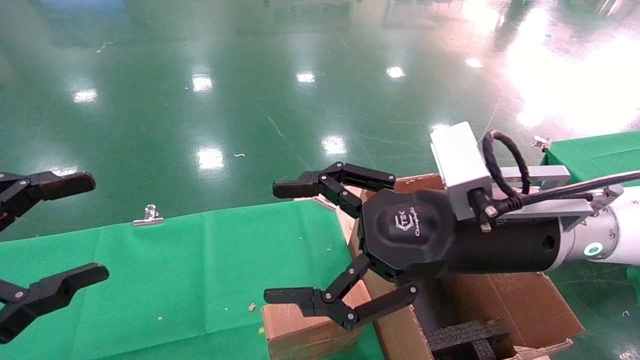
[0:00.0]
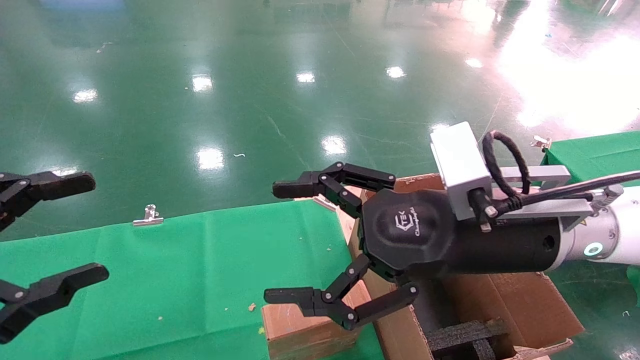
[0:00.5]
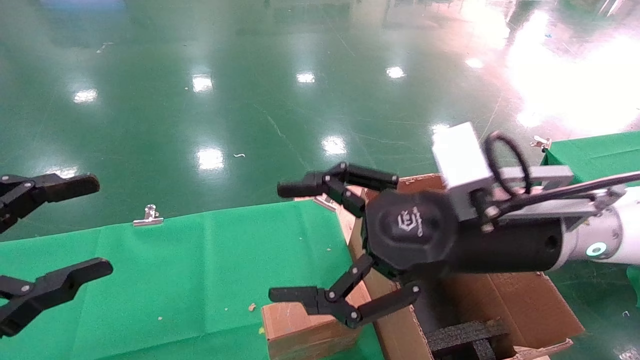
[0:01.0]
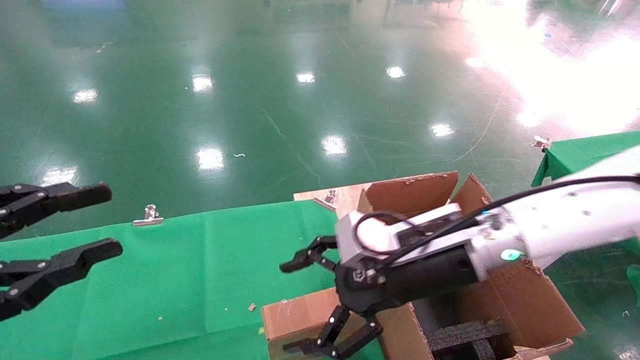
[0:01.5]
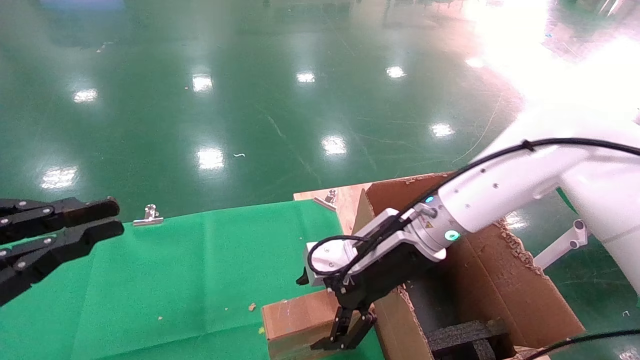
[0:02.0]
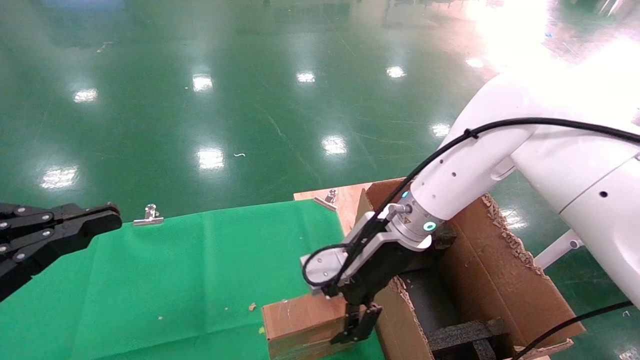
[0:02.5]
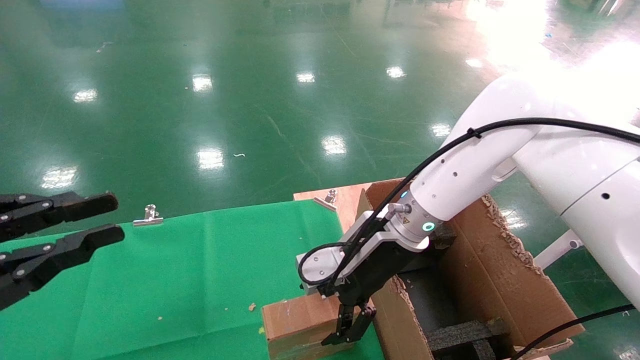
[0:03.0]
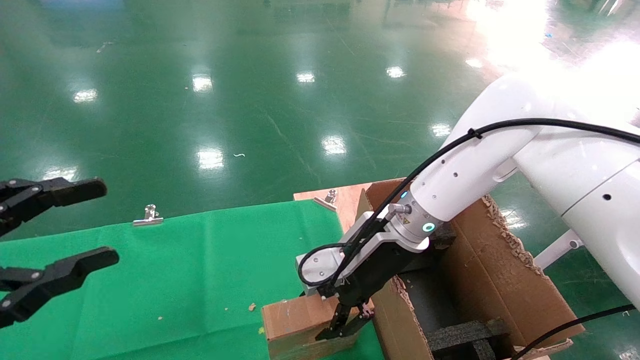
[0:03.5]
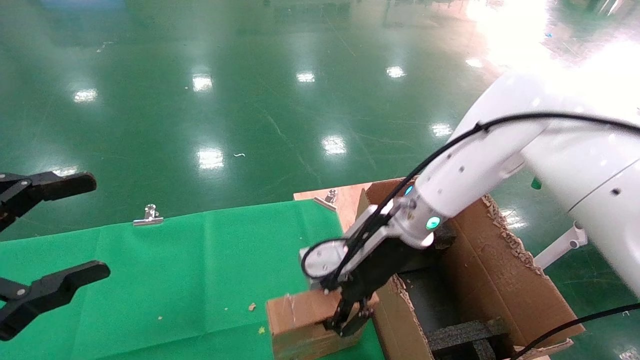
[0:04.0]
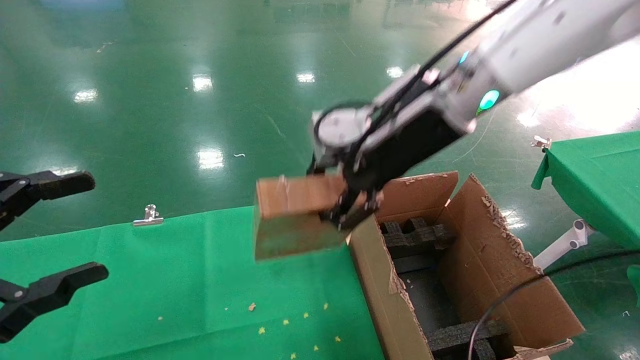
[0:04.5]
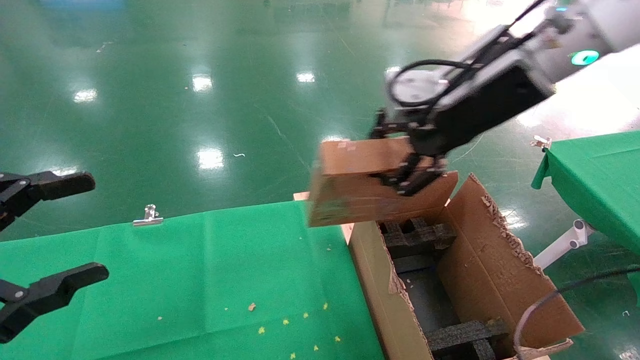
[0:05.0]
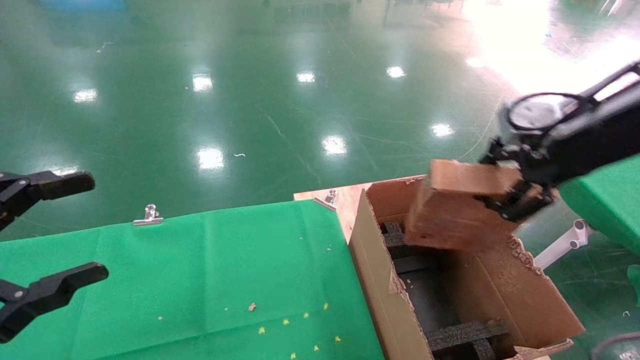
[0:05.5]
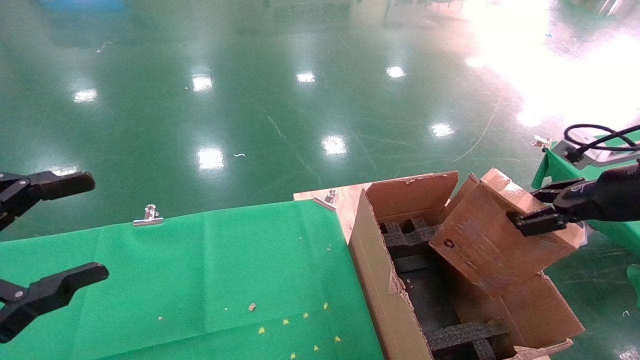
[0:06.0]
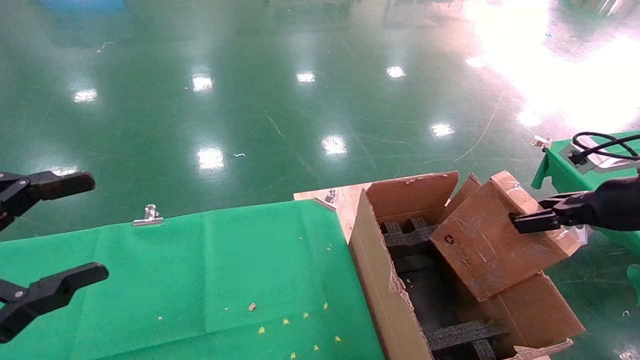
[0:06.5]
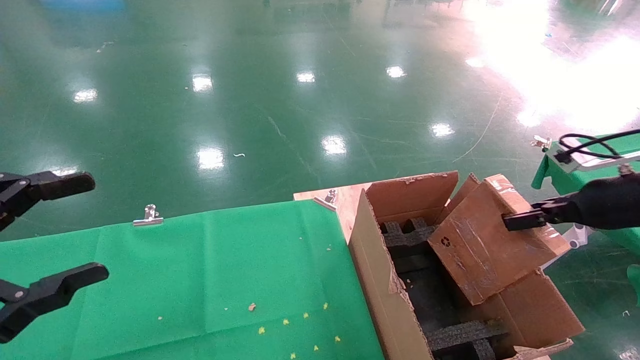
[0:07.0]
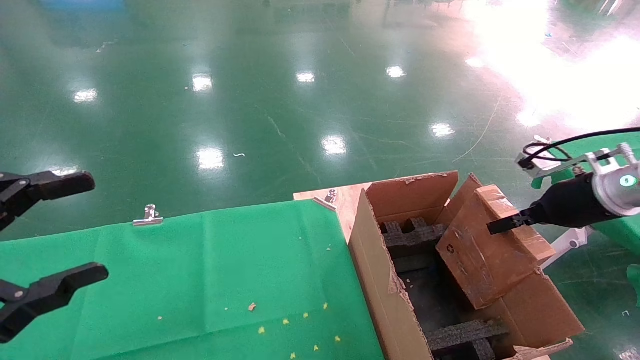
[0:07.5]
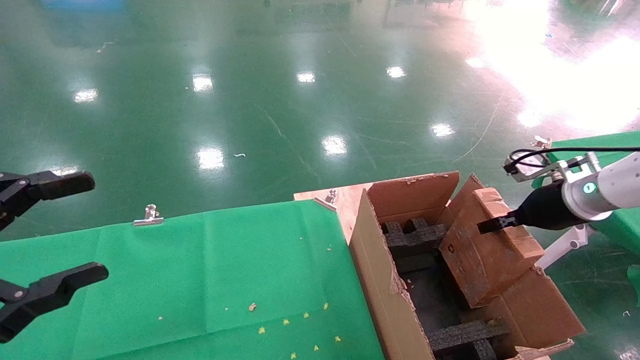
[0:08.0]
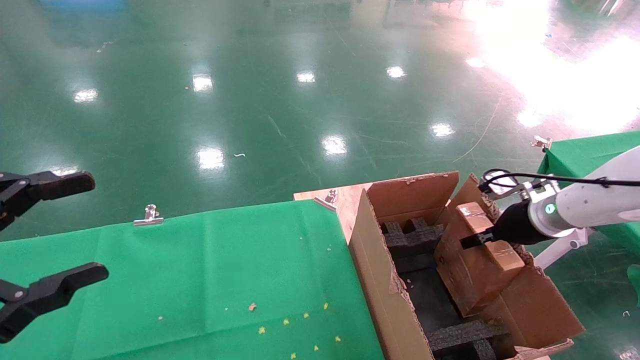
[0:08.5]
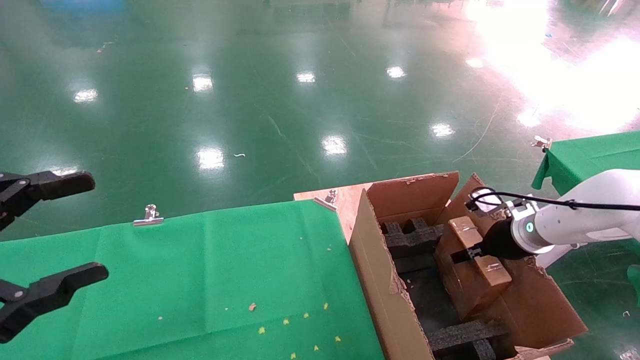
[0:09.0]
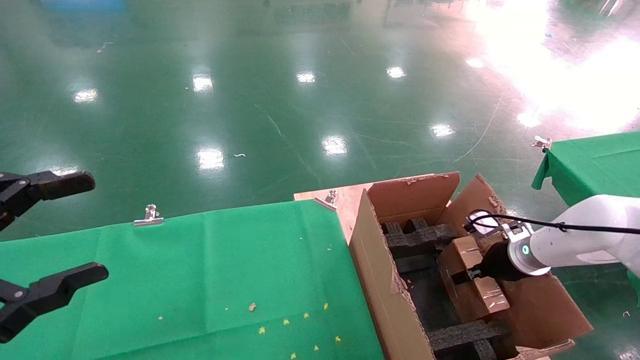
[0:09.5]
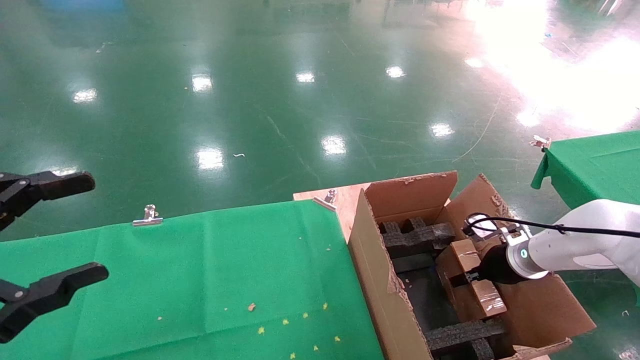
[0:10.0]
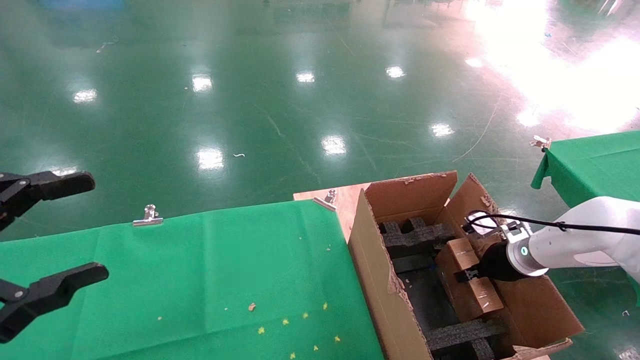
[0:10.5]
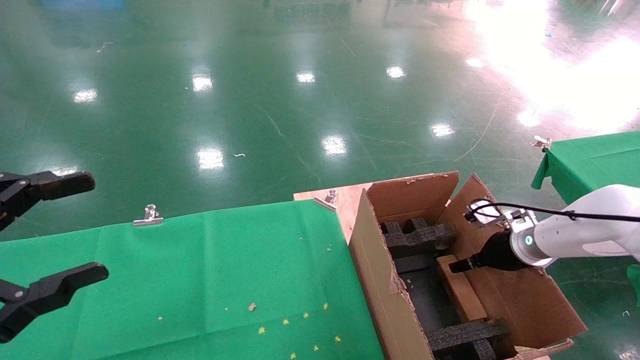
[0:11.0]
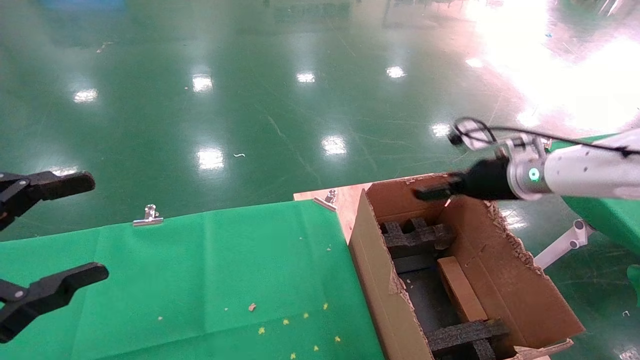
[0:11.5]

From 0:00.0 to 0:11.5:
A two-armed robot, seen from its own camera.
Task of the whole recording: using a robotic arm to pick up a cardboard box and palace it the carton.
Step, from 0:01.5 to 0:03.5: Pick up the mouse and the power cord paper box.
Step, from 0:04.0 to 0:11.0: Place the mouse and the power cord paper box into the container.
From 0:00.0 to 0:02.0: The left gripper closes, while the right gripper travels forward and downward by approximately 10 cm.
From 0:02.0 to 0:04.0: The left gripper opens, while the right gripper closes.
From 0:04.0 to 0:06.0: The right gripper is displaced to the right by approximately 30 cm.
From 0:06.0 to 0:07.5: The right gripper goes roughly 10 cm forward and downward.
From 0:07.5 to 0:09.5: The right gripper heads downward and forward, covering about 15 cm.
From 0:09.5 to 0:11.5: The right gripper heads upward and to the left, covering about 15 cm, and opens up.

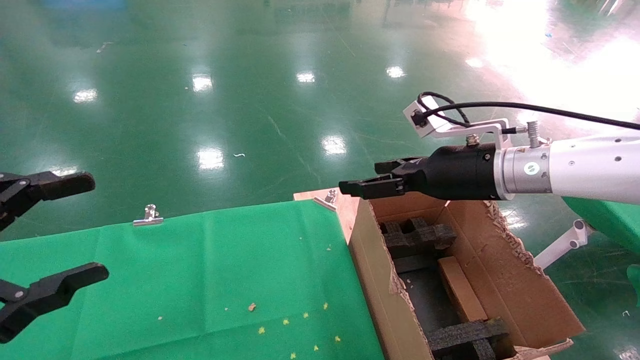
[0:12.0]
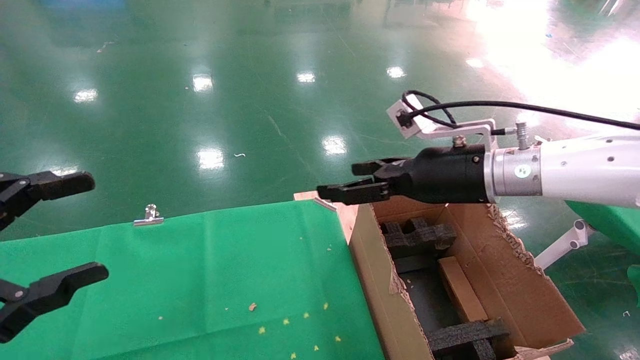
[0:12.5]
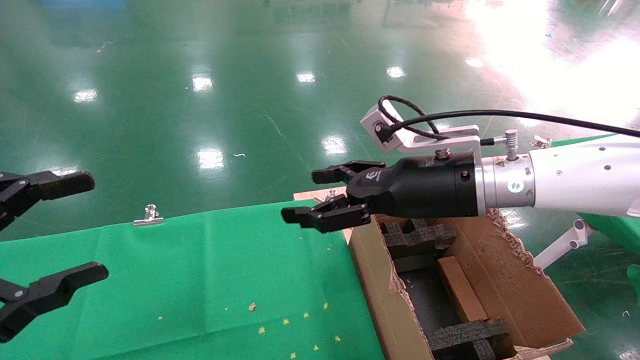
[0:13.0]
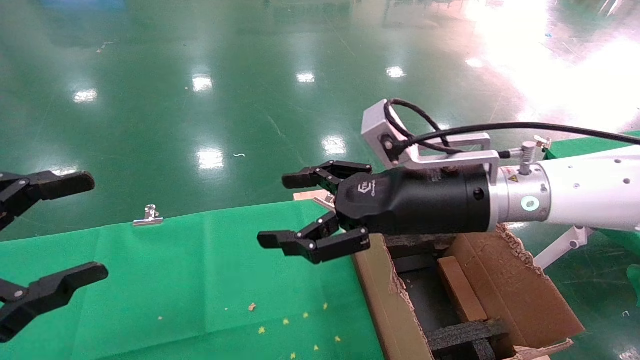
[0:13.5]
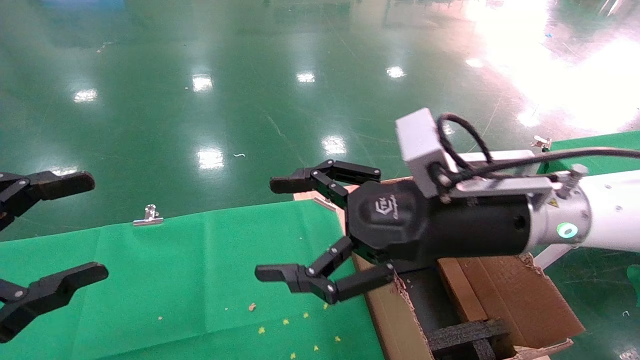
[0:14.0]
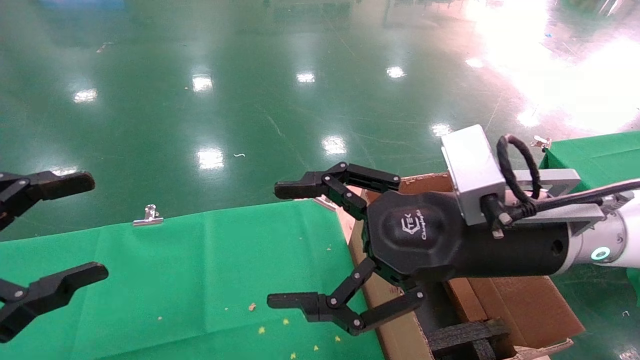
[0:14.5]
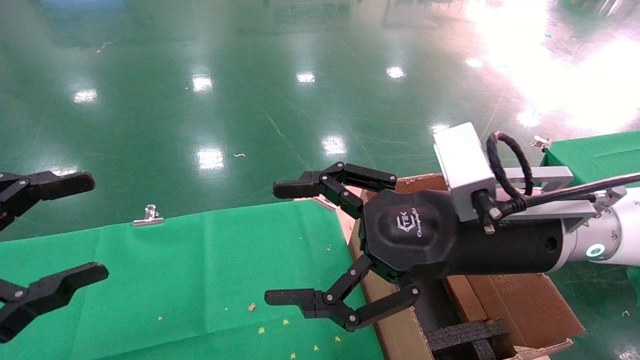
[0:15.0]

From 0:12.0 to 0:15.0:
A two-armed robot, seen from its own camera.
Task of the whole recording: using a robotic arm to pick up a cardboard box and palace it the carton.
From 0:12.0 to 0:13.5: The right gripper shifts roughly 10 cm to the left and backward.
From 0:13.5 to 0:15.0: The right gripper heads backward, covering roughly 5 cm.
